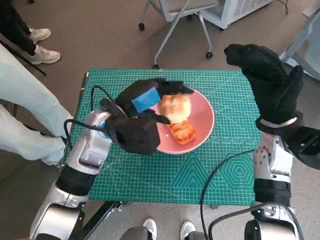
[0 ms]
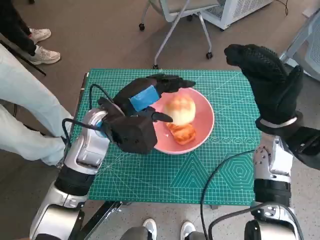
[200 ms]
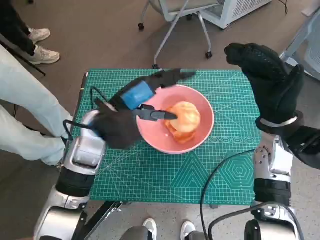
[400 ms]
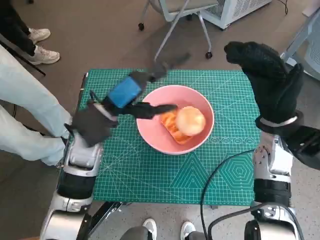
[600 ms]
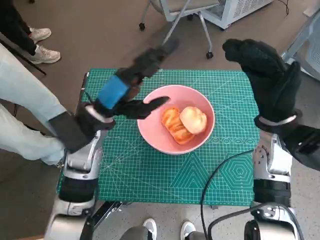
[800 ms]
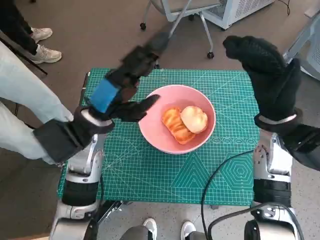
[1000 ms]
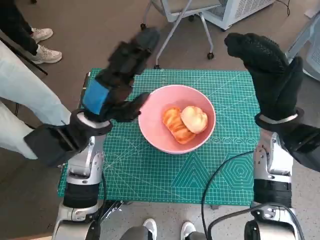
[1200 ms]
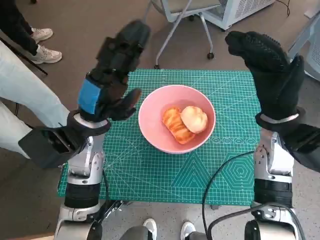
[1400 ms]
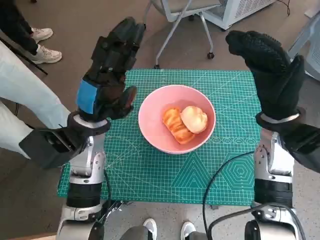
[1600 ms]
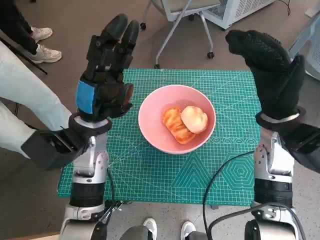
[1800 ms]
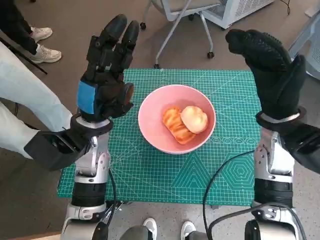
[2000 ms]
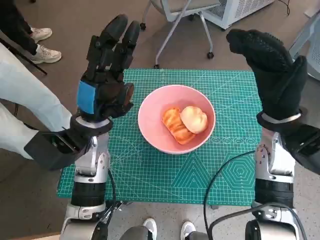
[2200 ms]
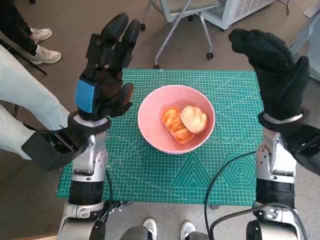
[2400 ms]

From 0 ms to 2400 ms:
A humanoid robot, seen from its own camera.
Task of the whole recording: Push the bowl into the center of the table and put the bread into the bowl.
From 1200 ms to 2400 ms: The hands stay close to where they were, moving slightly.

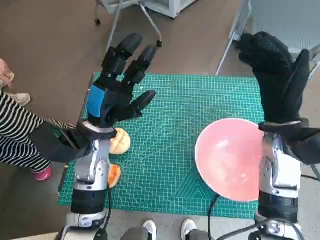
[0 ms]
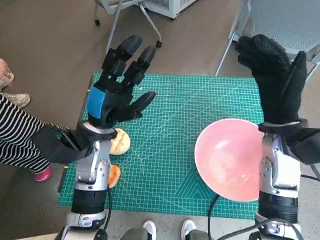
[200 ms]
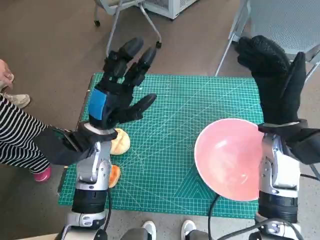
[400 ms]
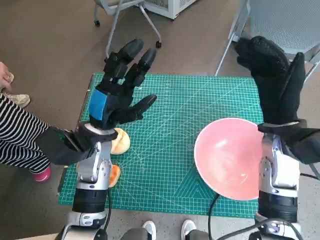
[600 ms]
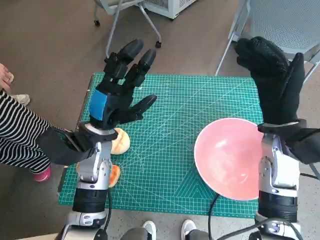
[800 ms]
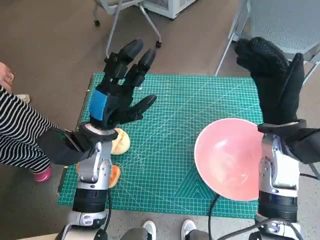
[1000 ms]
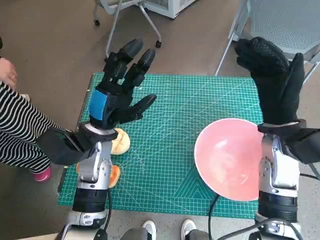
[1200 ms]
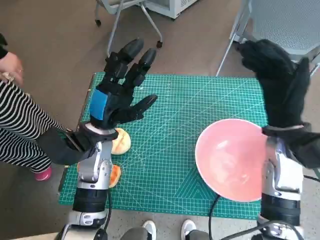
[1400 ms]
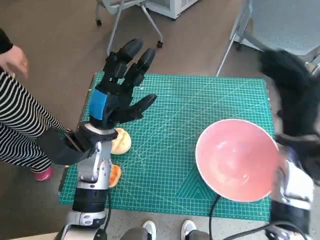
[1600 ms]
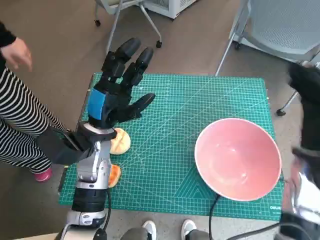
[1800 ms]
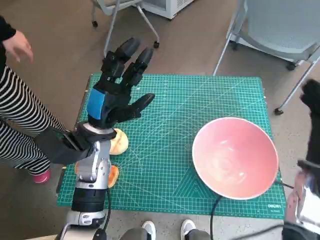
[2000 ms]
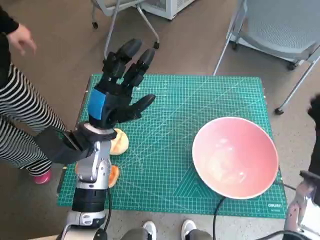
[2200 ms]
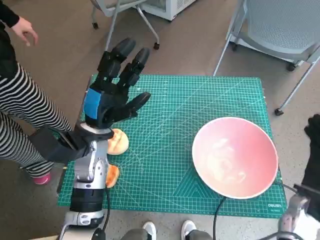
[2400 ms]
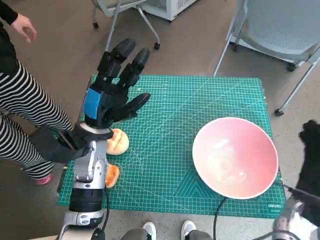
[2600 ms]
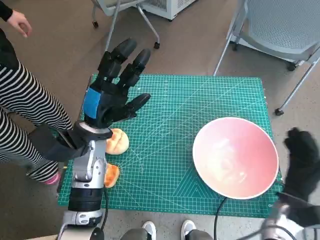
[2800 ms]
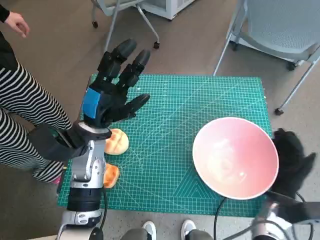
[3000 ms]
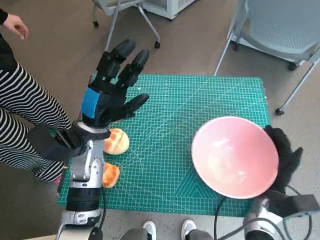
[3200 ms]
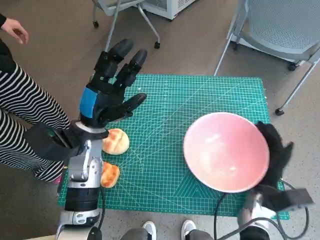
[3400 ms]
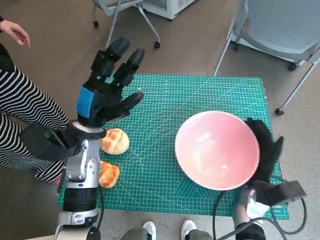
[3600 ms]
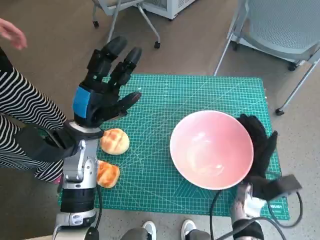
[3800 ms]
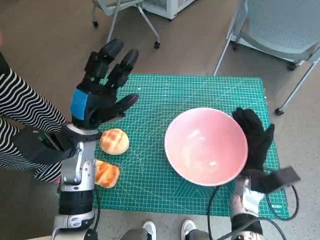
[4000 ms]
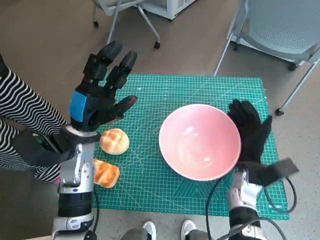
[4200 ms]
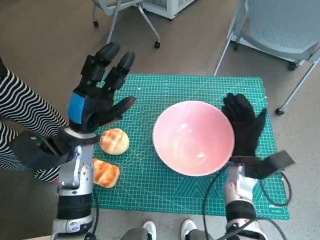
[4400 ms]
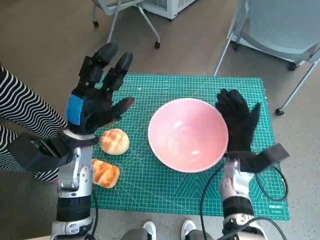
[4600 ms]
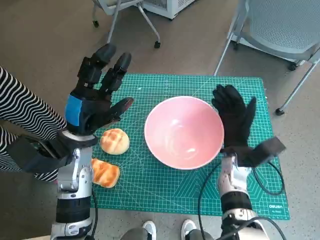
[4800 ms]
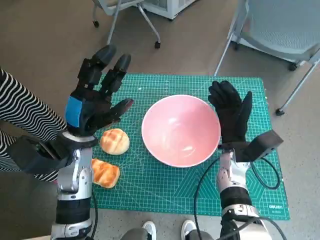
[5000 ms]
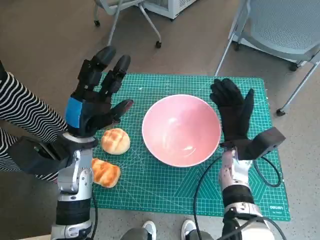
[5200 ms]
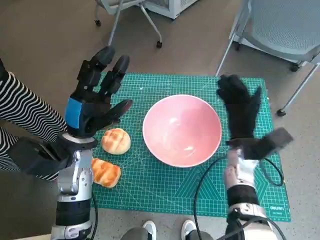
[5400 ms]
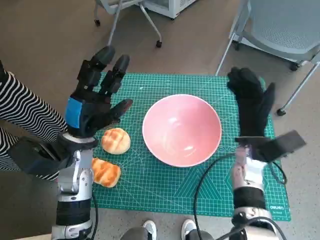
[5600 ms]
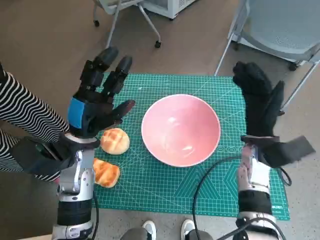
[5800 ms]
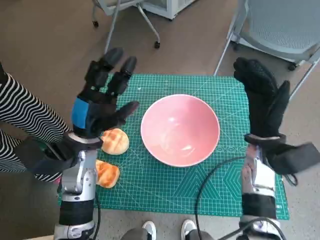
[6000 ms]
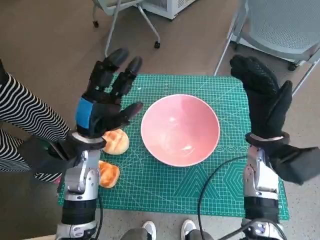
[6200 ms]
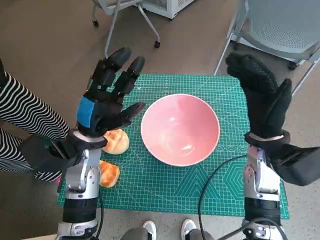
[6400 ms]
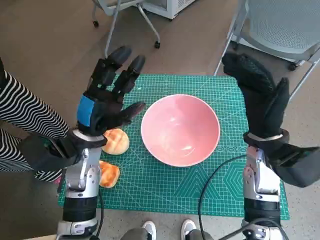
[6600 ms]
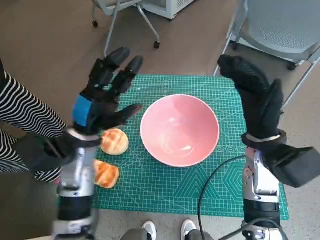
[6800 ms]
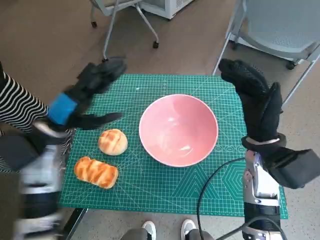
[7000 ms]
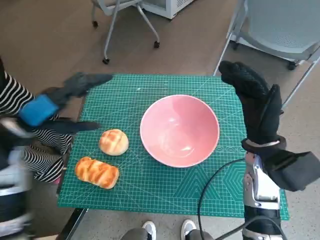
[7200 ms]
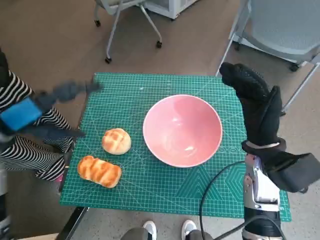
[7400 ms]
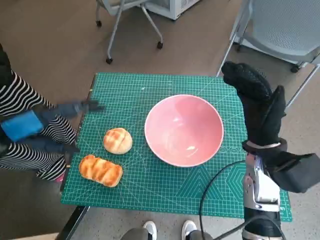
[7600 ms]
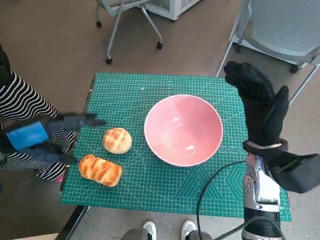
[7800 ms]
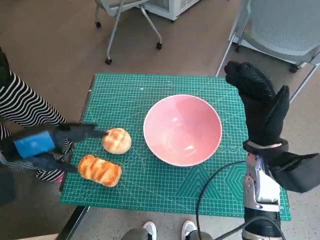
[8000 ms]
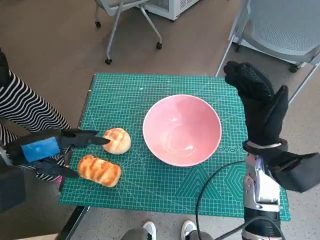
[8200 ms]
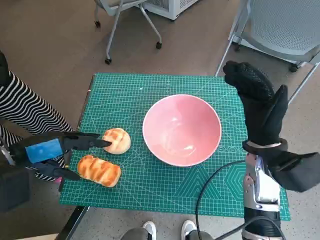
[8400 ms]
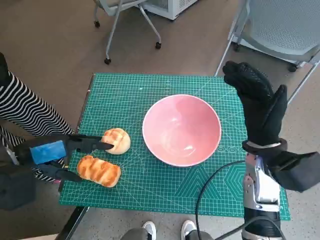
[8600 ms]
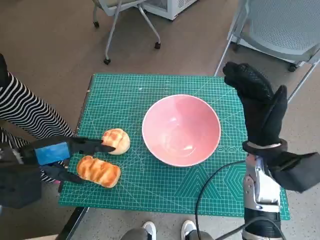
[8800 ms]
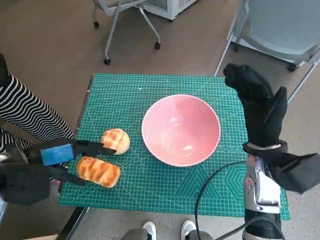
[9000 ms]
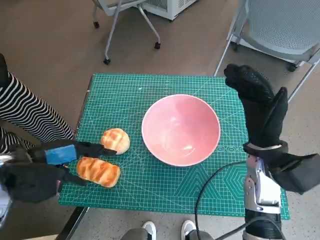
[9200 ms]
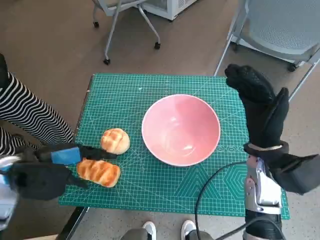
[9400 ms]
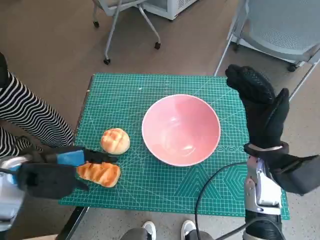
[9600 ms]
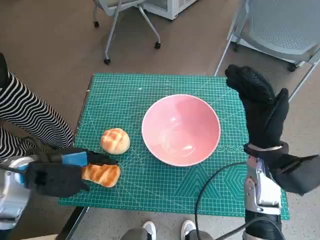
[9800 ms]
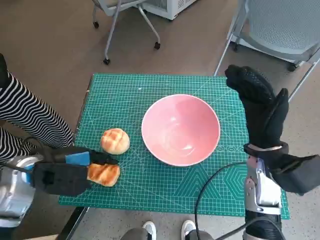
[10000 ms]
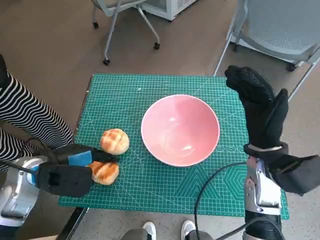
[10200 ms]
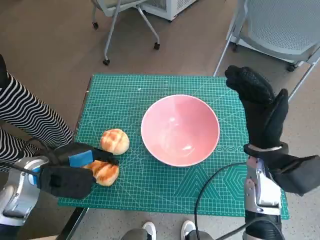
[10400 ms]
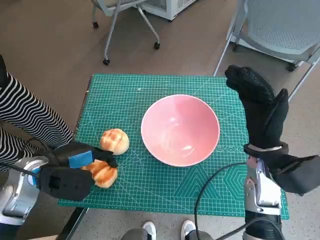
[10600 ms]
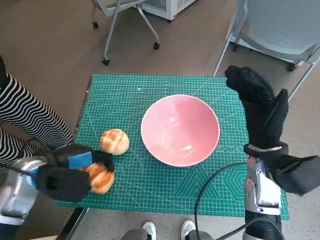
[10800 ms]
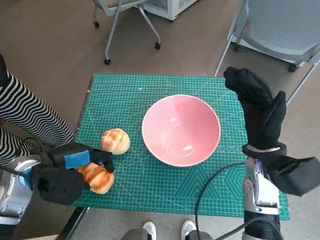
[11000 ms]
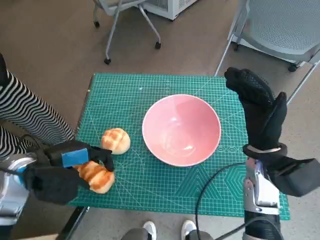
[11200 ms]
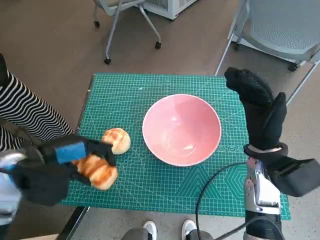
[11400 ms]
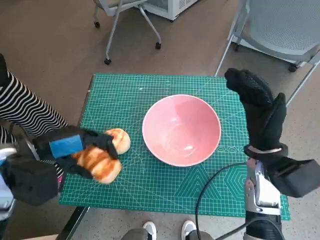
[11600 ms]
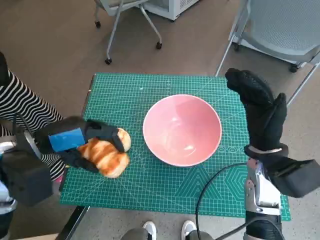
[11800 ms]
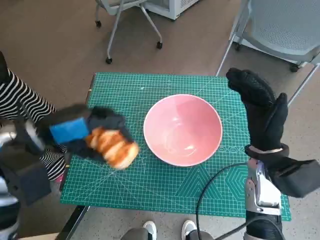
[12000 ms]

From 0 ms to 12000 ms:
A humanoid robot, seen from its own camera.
Task of the whole recording: Push the bowl into the center of the table and put the bread into the bowl.
Step, from 0 ms to 5200 ms: Move the pink bowl to the center of table with right hand.
Step, from 5400 ms to 10600 ms: Grasp the long bread with left hand.
From 1600 ms to 3000 ms: The right hand goes approximately 20 cm downward and backward.
From 3000 ms to 4400 ms: The right hand shifts some 10 cm to the left and forward.
From 4400 ms to 6000 ms: The right hand moves upward, roughly 10 cm.
From 6000 ms to 7600 ms: The left hand is displaced to the left and upward by some 15 cm.
From 9000 ms to 10400 ms: The left hand travels downward by approximately 5 cm.
From 10400 ms to 12000 ms: The left hand shifts about 10 cm upward.

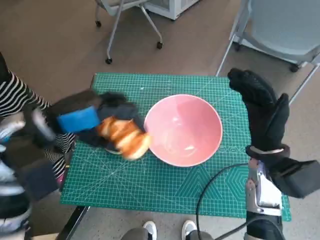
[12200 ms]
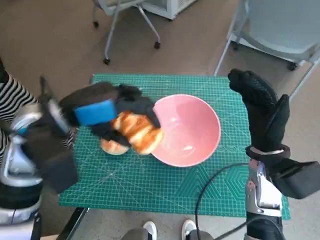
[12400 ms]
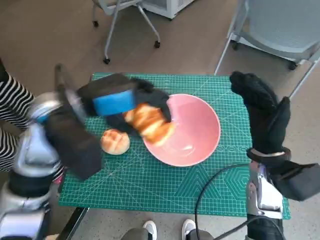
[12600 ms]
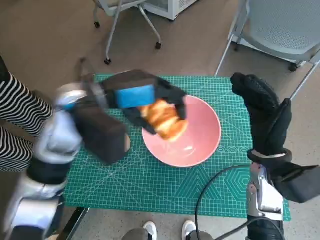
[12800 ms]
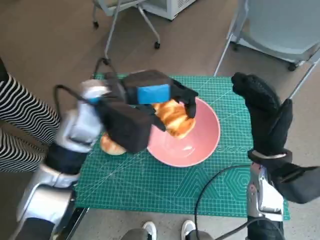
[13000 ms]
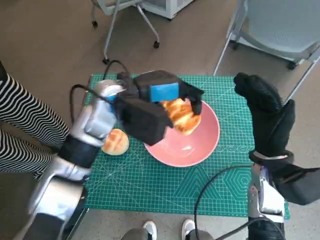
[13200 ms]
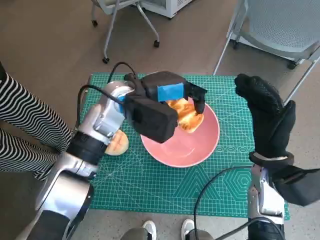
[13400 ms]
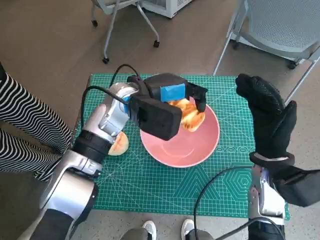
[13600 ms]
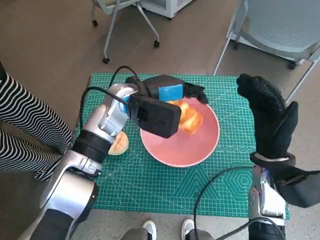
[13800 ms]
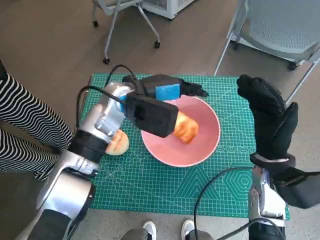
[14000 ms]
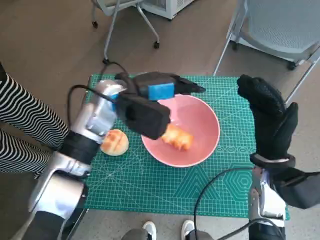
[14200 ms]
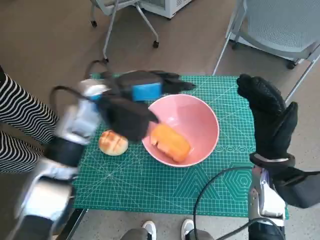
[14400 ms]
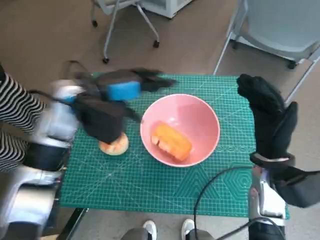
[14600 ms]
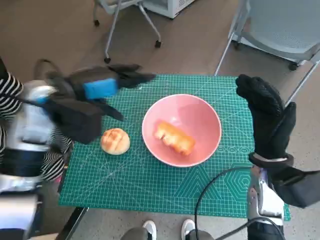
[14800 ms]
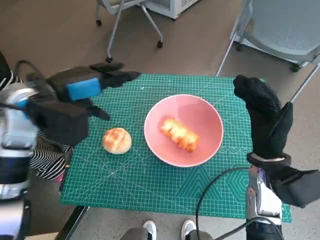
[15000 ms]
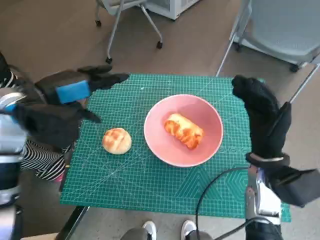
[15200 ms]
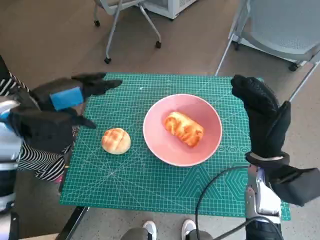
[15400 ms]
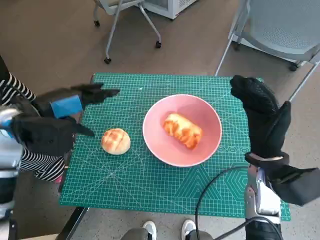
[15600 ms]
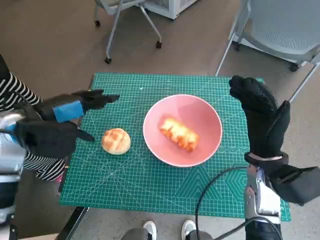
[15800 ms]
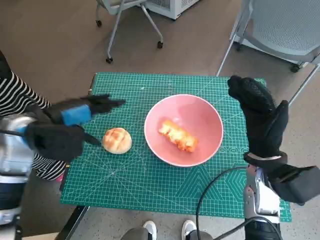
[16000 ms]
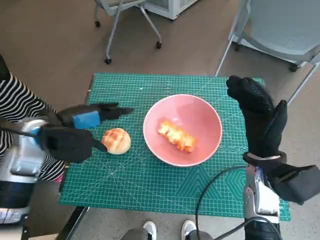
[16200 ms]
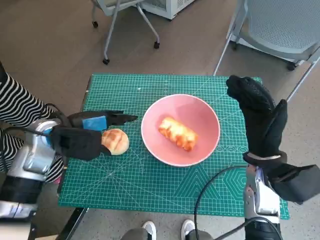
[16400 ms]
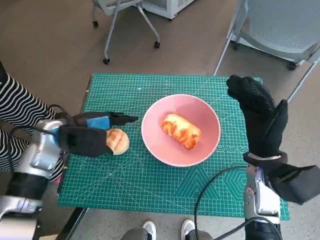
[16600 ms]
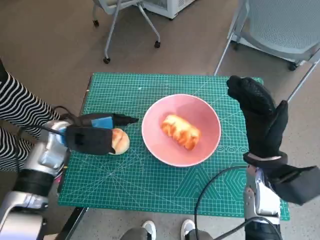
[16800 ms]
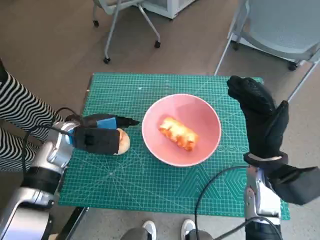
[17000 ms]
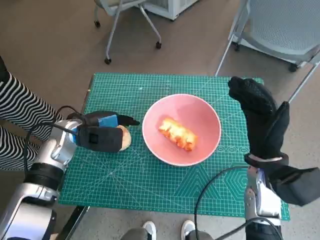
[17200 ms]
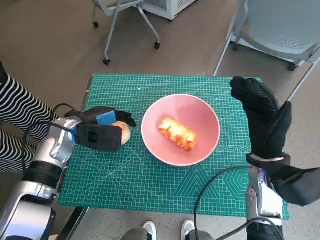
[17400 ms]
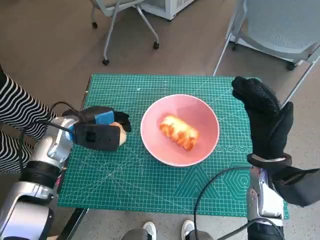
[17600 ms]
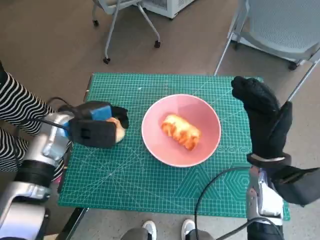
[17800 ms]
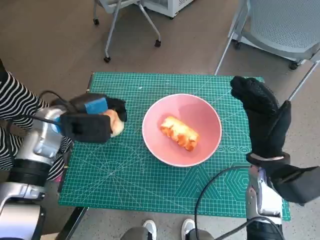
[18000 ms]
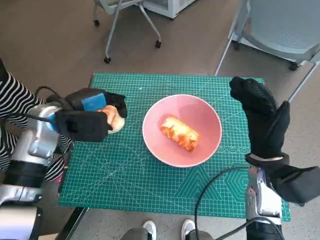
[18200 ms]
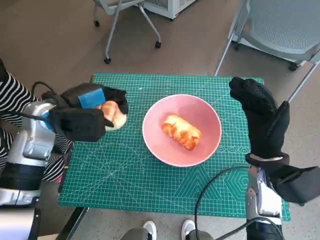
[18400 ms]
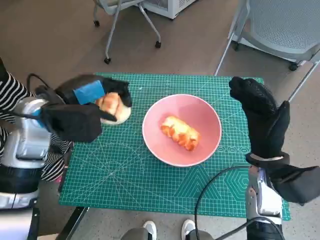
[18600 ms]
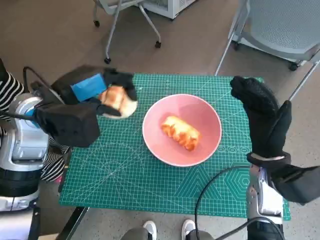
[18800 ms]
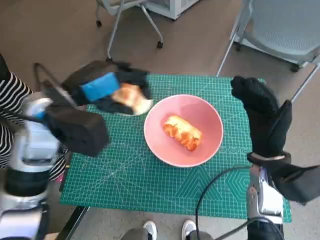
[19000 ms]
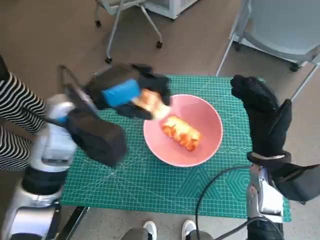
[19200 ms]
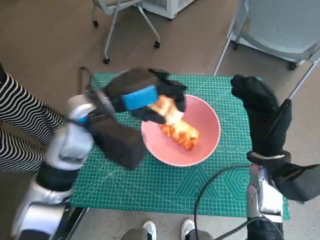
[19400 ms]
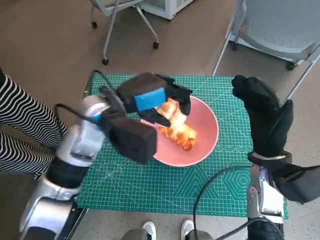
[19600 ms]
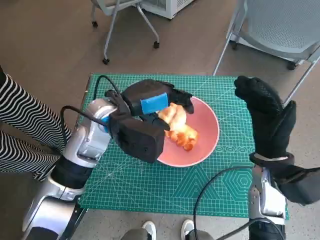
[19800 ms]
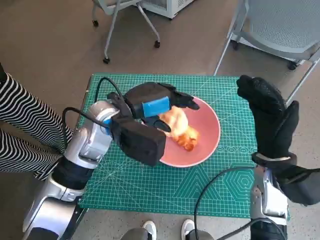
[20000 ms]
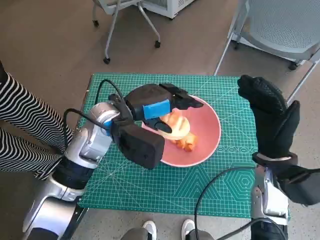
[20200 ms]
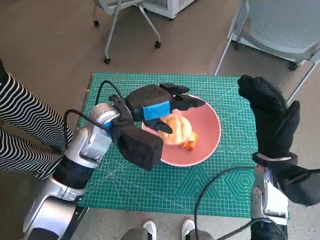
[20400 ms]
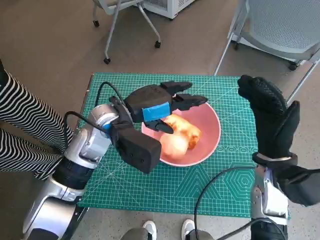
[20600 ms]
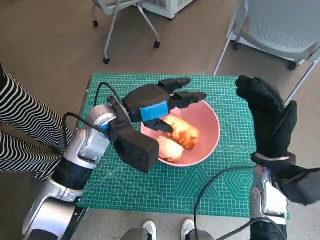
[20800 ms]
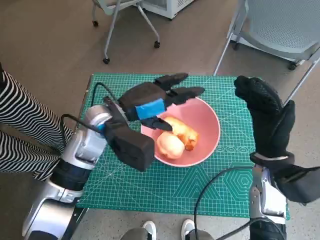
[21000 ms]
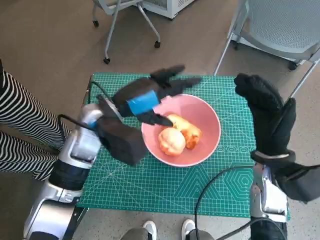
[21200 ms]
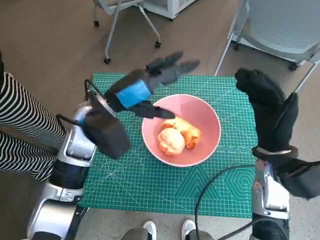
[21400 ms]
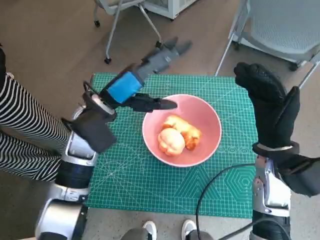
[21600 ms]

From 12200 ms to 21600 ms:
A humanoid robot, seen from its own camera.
Task of the whole recording: Push the bowl into the center of the table and put the bread into the bowl.
Step, from 12200 ms to 14200 ms: Place the long bread in pink bowl with left hand.
Step, from 14400 ms to 17400 ms: Grasp the round bread with left hand.
Step, from 17600 ms to 20600 ms: Place the round bread in pink bowl with left hand.
From 12200 ms to 13800 ms: The left hand moves to the right and forward, roughly 15 cm.
From 13800 ms to 15400 ms: The left hand heads to the left, covering approximately 15 cm.
From 15400 ms to 17000 ms: The left hand travels downward by some 10 cm.
From 17000 ms to 18400 ms: The left hand goes some 5 cm upward.
From 18400 ms to 20000 ms: The left hand goes about 10 cm to the right.
